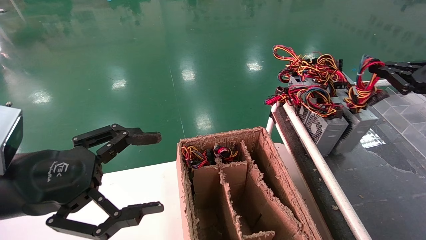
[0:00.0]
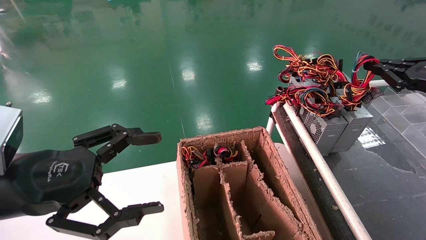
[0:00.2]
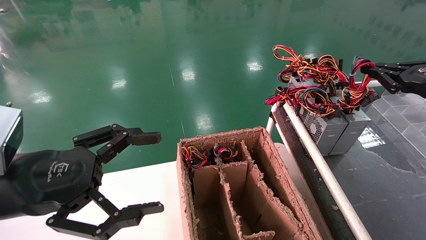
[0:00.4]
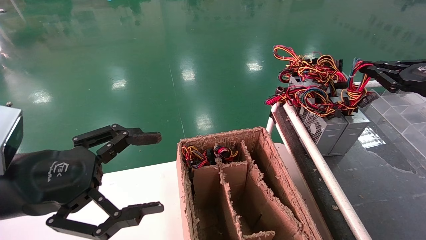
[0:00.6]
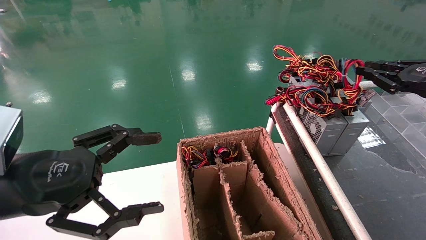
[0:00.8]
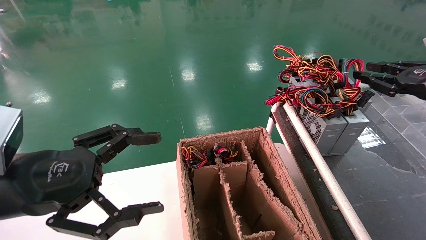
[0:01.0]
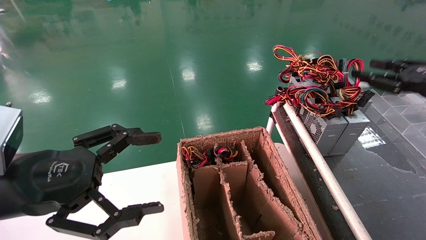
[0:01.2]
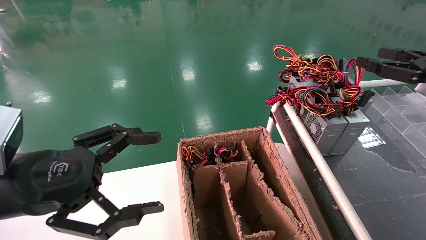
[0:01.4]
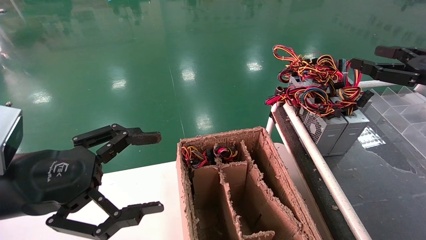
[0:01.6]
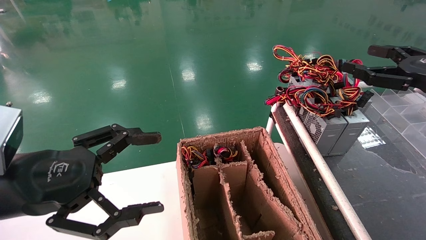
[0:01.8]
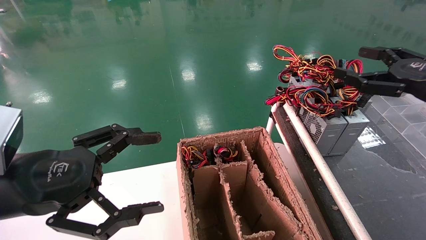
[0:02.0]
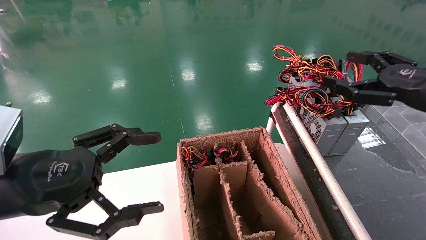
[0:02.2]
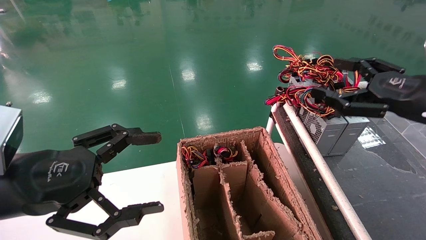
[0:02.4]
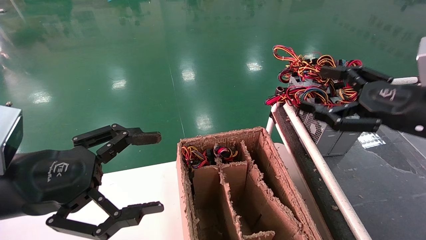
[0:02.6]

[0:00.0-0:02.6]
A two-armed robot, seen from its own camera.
0:00.0 to 0:01.2: The right gripper opens up.
0:01.2 to 0:02.6: The right gripper is displaced to the left and backward by approximately 10 cm, and opens up.
